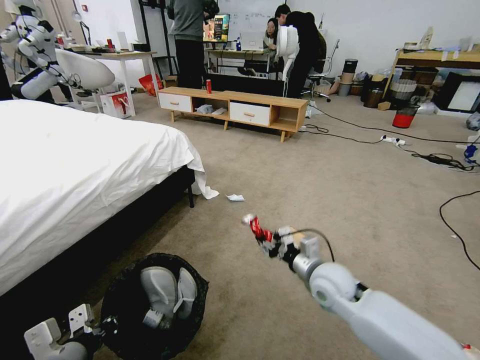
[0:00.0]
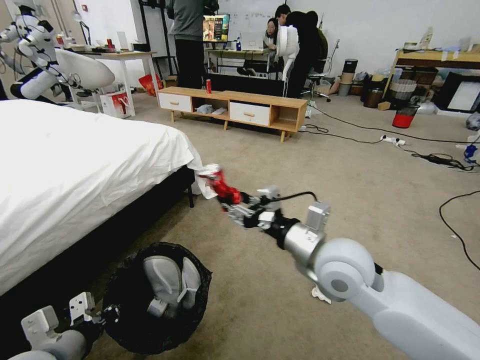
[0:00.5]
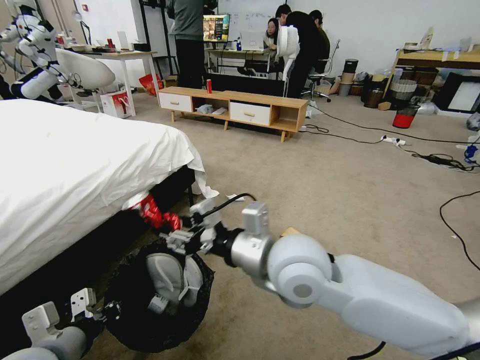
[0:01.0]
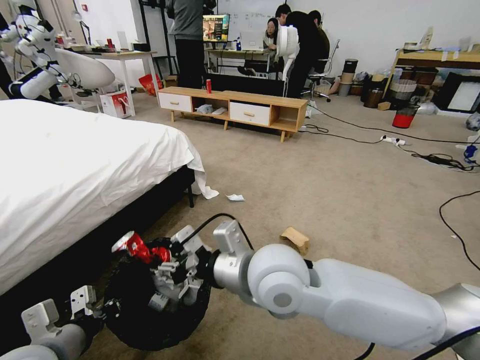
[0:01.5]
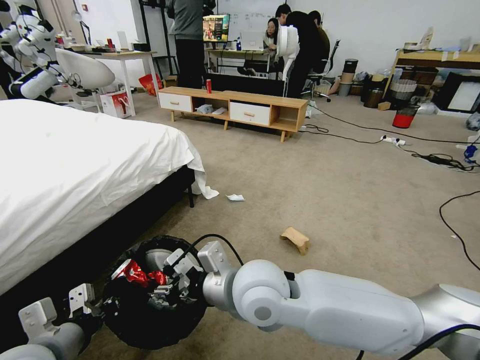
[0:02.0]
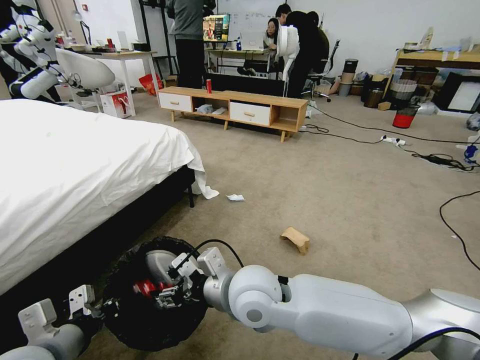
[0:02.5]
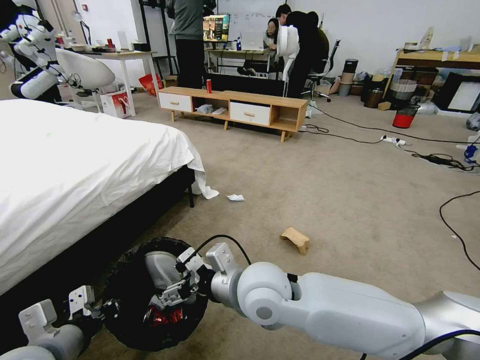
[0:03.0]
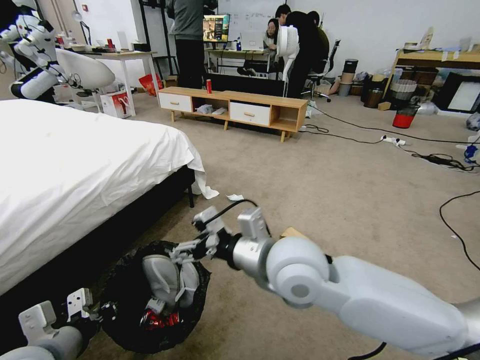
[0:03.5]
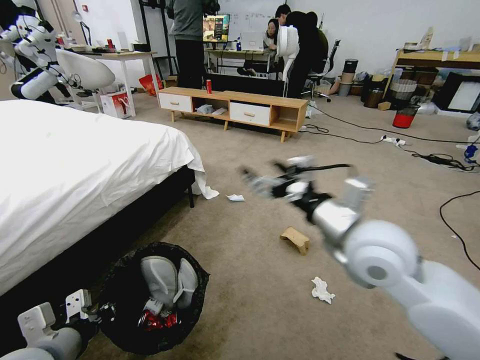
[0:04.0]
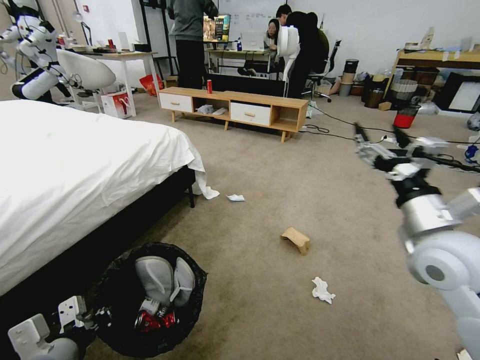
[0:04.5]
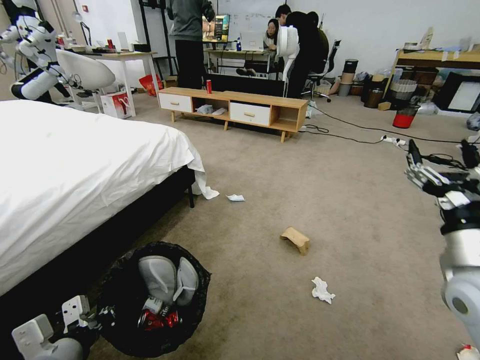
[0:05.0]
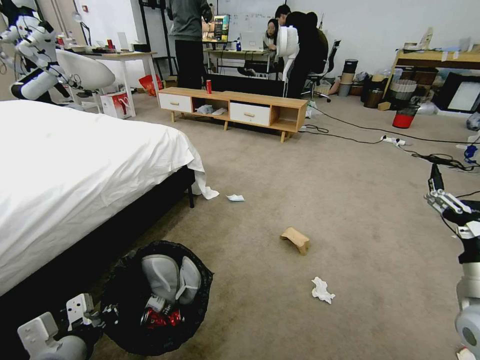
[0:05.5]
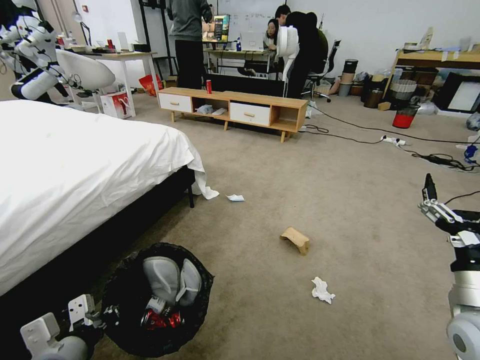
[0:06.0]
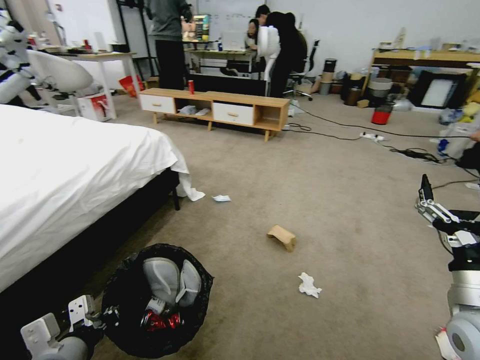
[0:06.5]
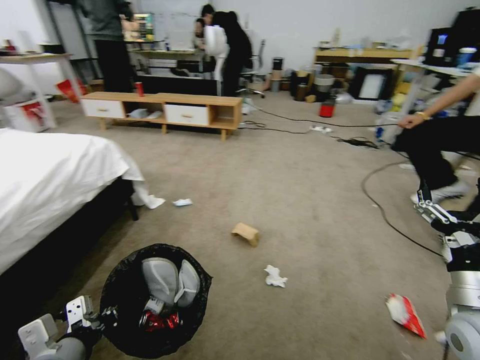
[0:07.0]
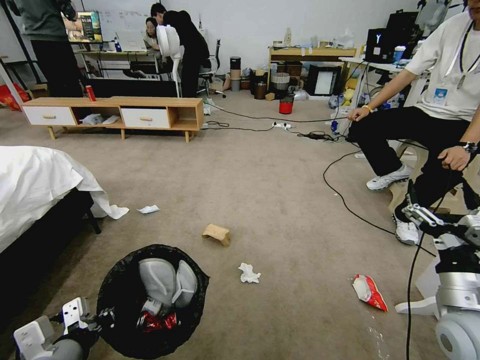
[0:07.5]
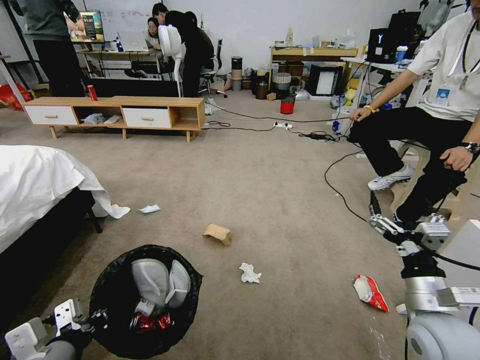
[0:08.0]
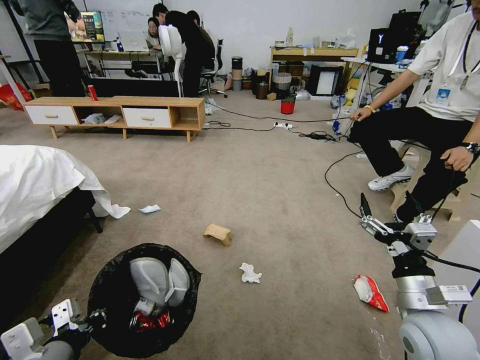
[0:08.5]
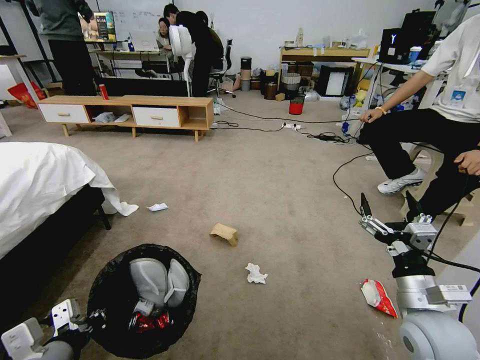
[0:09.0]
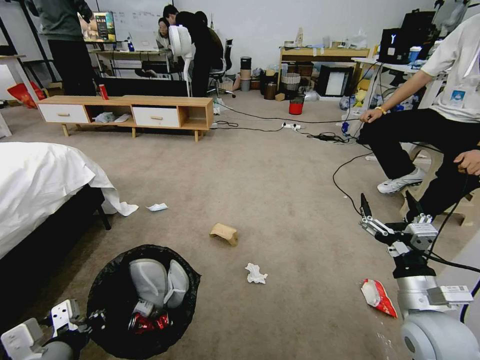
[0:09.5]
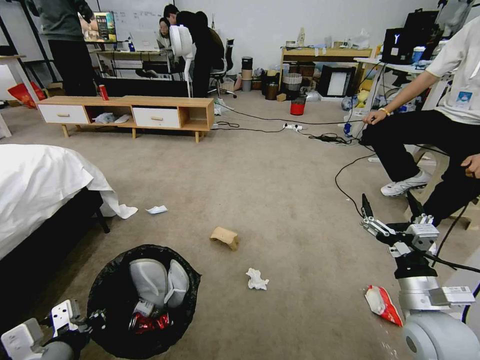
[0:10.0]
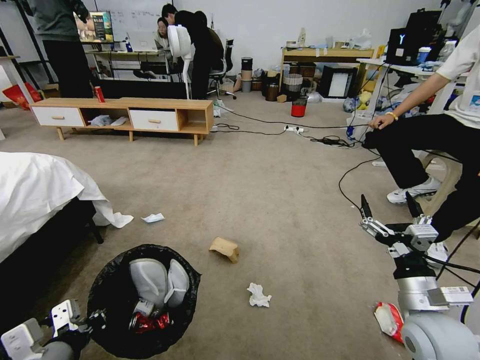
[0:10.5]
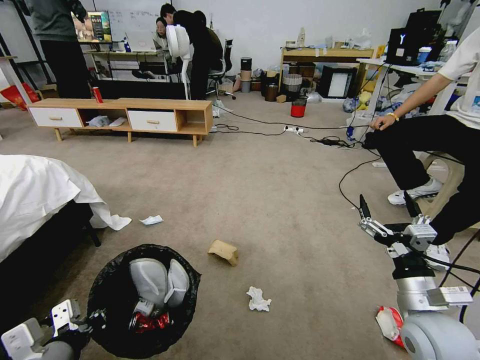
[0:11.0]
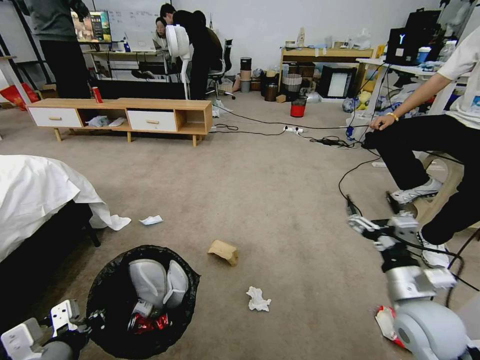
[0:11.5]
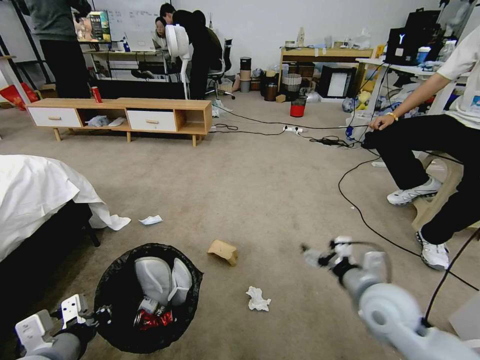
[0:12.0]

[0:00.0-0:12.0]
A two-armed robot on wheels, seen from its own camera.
Task of the whole recording: Pick up the trash bin and place the garbage on the floor into it.
0.0 to 2.0 s: The right gripper travels to the left, upward and backward by some 25 cm.
2.0 to 4.0 s: The right gripper shifts roughly 20 cm to the right, and opens its fingers.
4.0 to 6.0 s: The right gripper goes roughly 25 cm to the right, downward and backward.
6.0 to 8.0 s: The right gripper ends up approximately 5 cm from where it was.
10.0 to 12.0 s: The right gripper ends up roughly 5 cm from where it was.

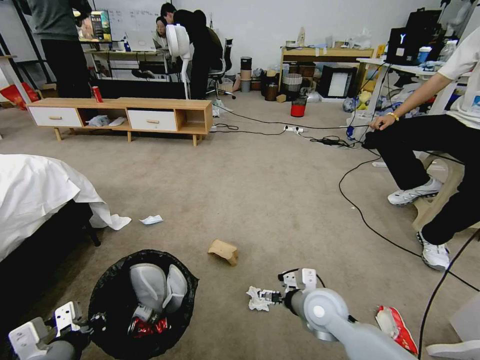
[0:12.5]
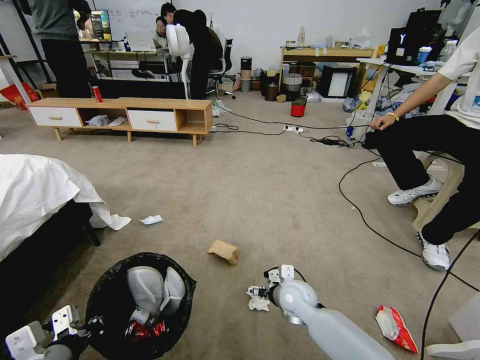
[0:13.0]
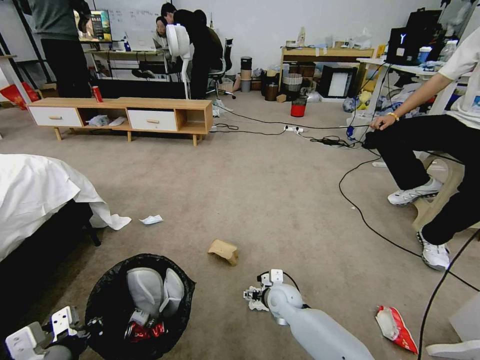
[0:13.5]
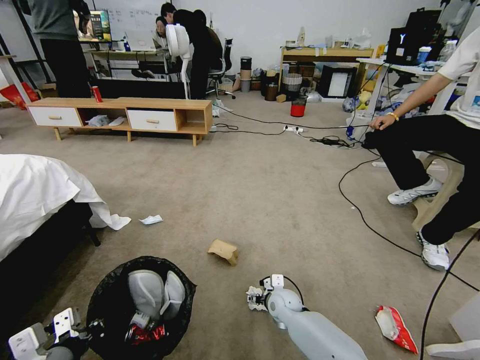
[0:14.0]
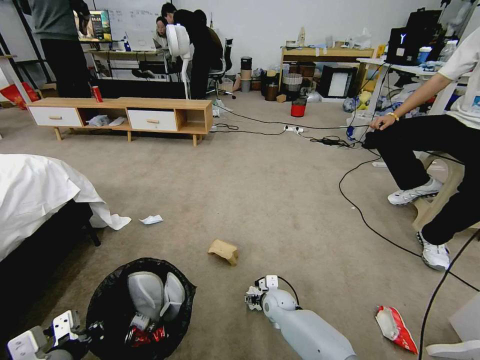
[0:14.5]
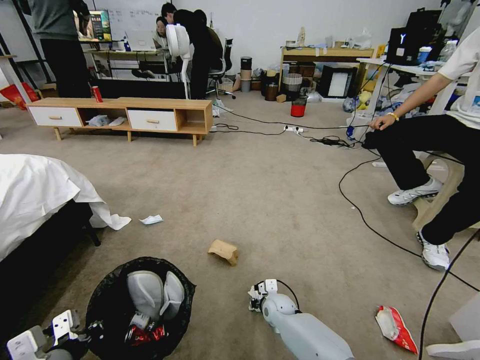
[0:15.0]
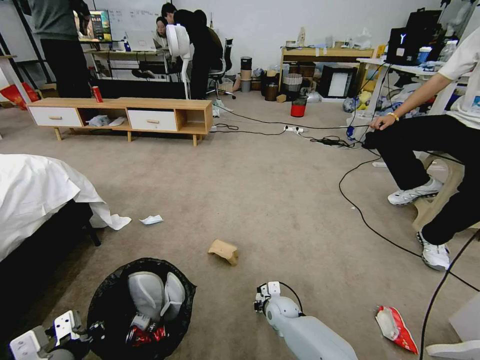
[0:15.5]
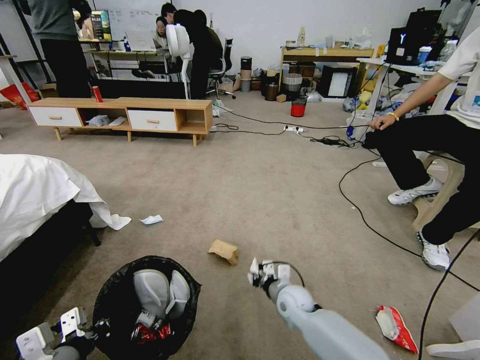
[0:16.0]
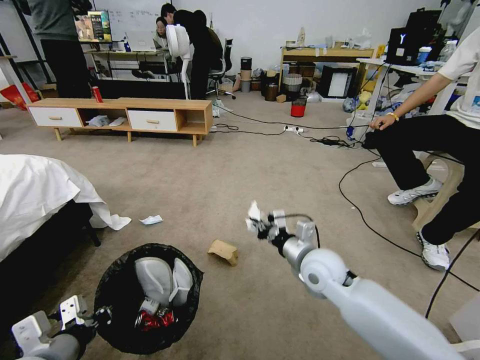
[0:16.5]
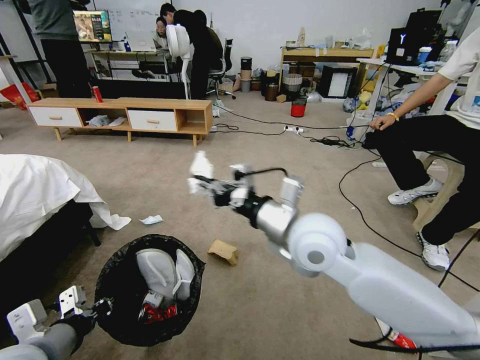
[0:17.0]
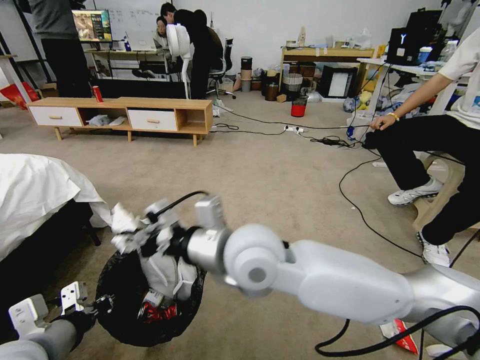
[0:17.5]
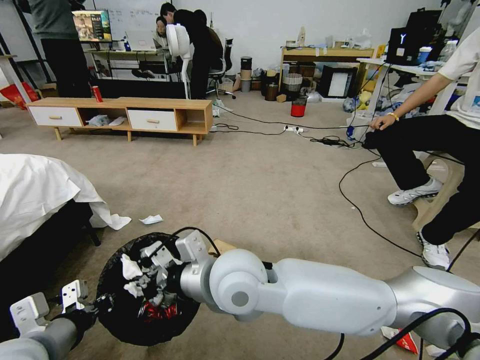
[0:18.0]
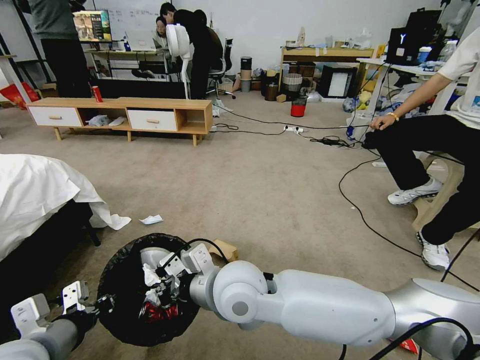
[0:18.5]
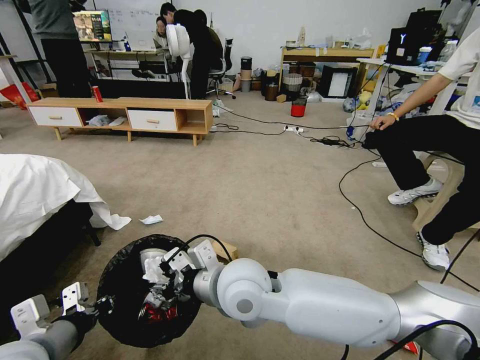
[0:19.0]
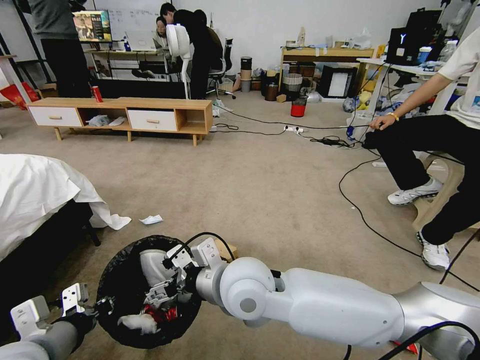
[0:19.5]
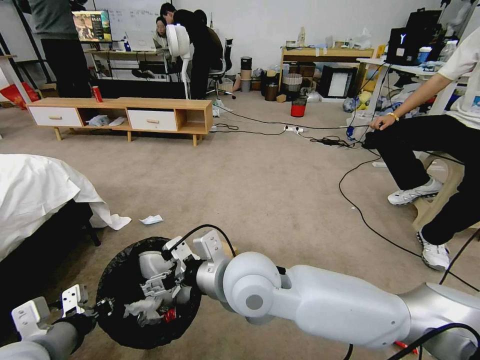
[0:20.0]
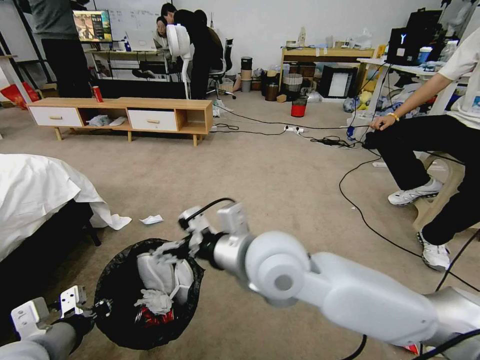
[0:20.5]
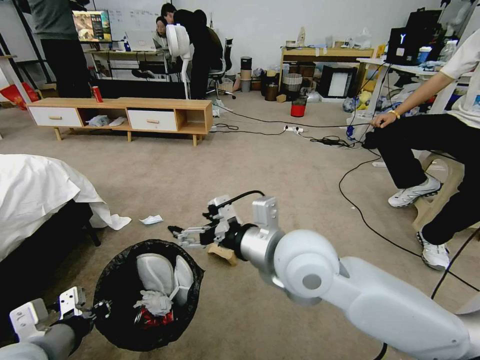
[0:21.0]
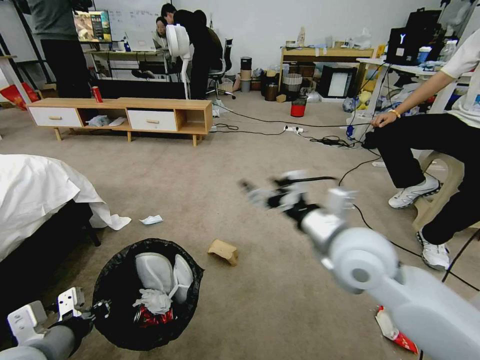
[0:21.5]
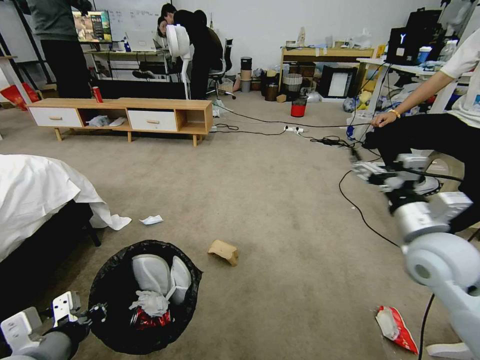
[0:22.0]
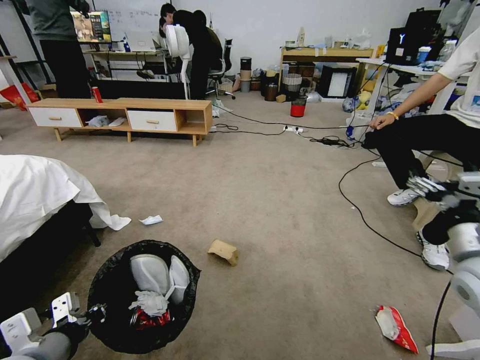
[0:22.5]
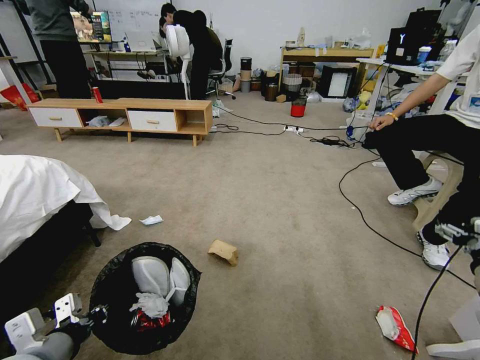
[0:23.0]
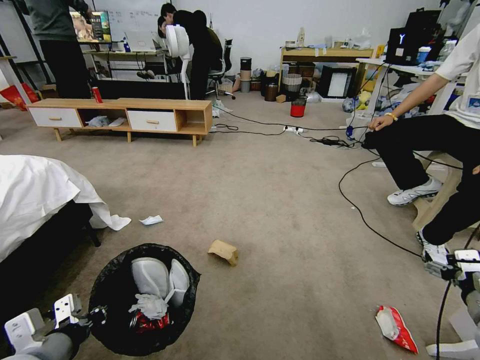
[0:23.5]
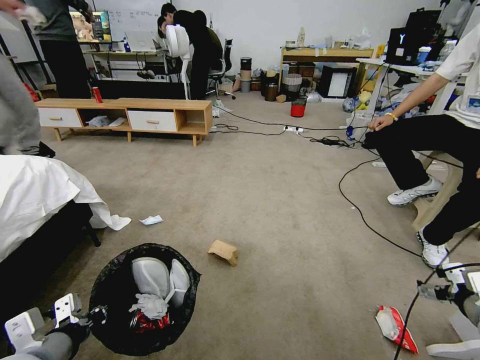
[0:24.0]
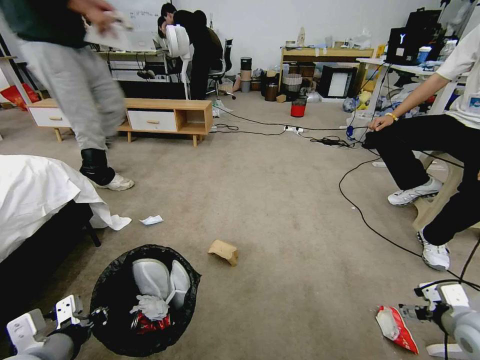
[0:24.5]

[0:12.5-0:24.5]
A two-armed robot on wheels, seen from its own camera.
Task of the whole recording: Pick up the trash bin and place the garbage on the floor into it.
12.5 to 14.5 s: The right gripper goes some 20 cm downward, forward and to the left.
14.5 to 16.5 s: The right gripper heads upward, covering roughly 25 cm, and closes its fingers.
16.5 to 18.5 s: The right gripper is displaced to the left and backward by about 20 cm.
18.5 to 20.5 s: The right gripper travels upward and to the right by about 10 cm, and opens.
20.5 to 22.5 s: The right gripper goes about 35 cm to the right.
22.5 to 24.5 s: The right gripper moves downward, about 15 cm.

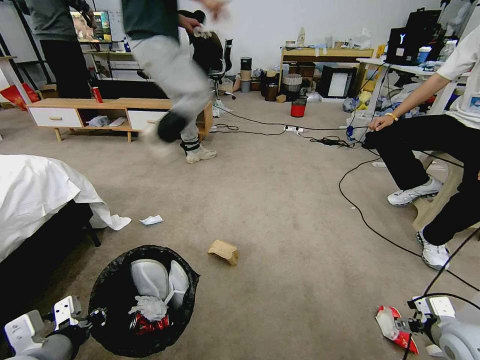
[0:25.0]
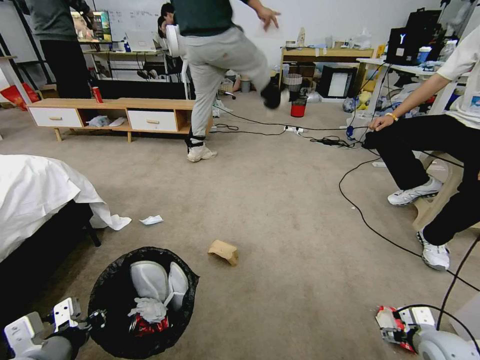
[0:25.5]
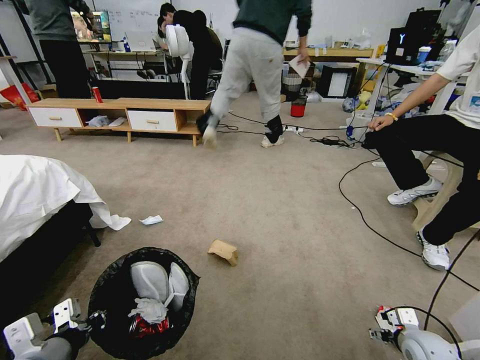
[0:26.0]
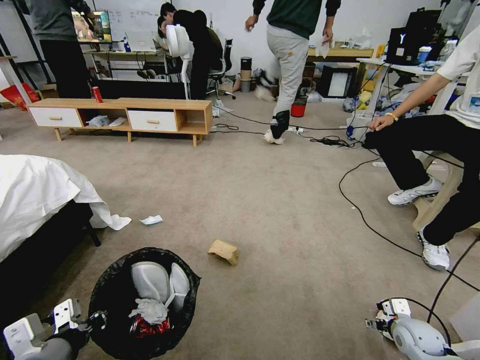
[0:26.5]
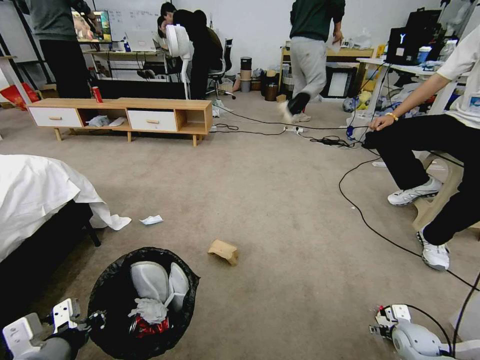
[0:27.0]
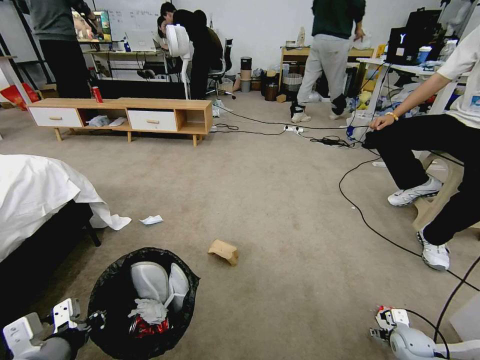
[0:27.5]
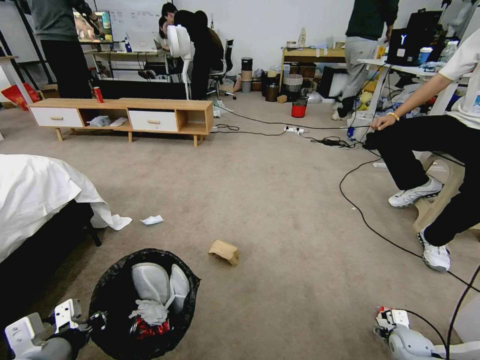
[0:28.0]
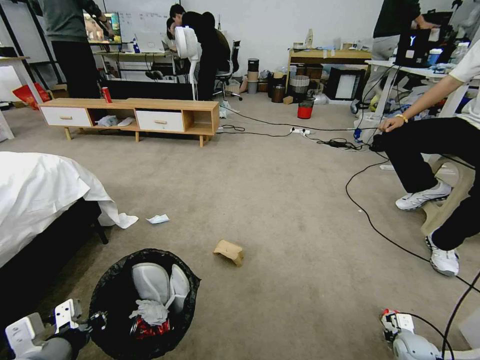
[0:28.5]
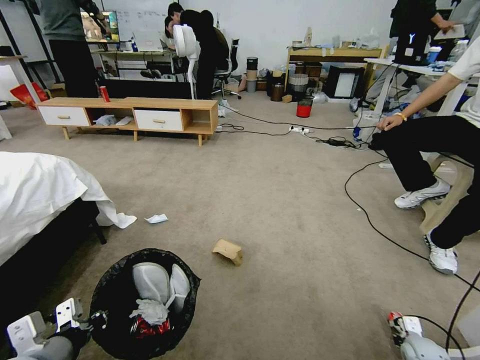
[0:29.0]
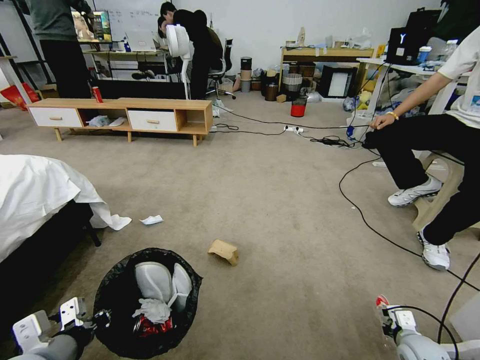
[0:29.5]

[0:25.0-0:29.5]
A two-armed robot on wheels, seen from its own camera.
Task of the whole recording: Pick up the trash bin and place the garbage on the floor into it.
25.0 to 27.0 s: The right gripper shifts some 15 cm downward and forward.
27.0 to 29.5 s: The right gripper closes.
